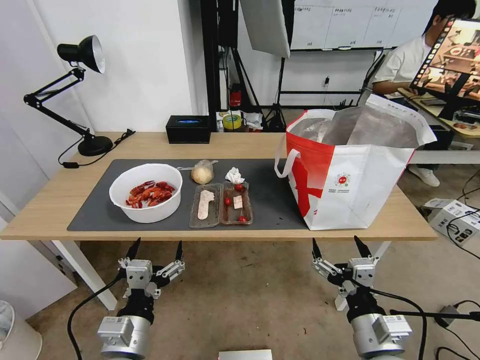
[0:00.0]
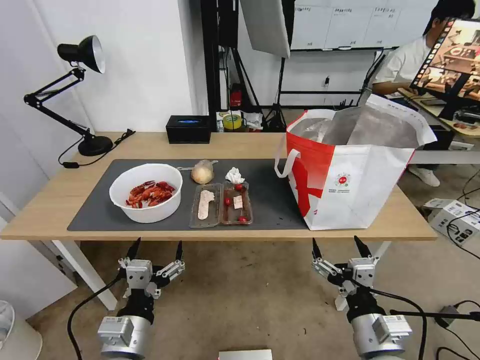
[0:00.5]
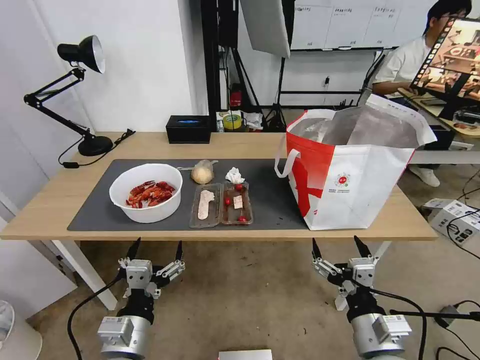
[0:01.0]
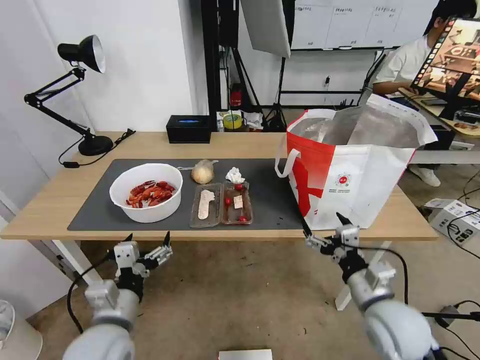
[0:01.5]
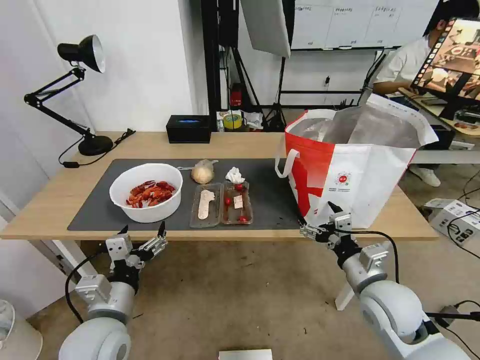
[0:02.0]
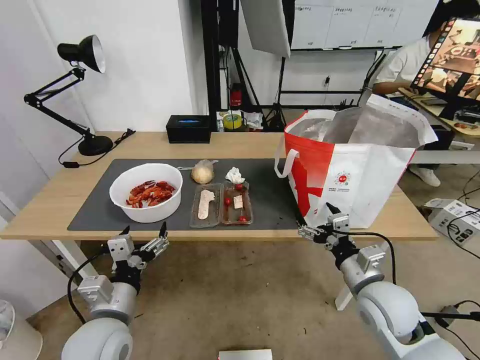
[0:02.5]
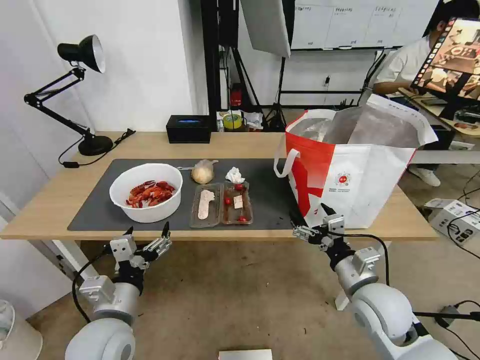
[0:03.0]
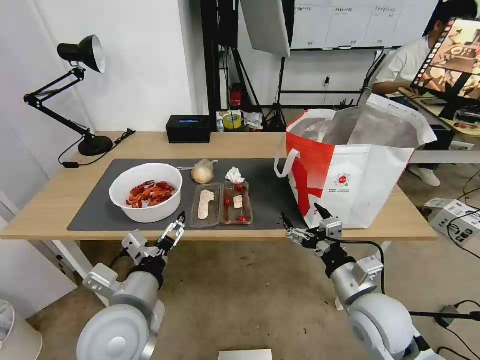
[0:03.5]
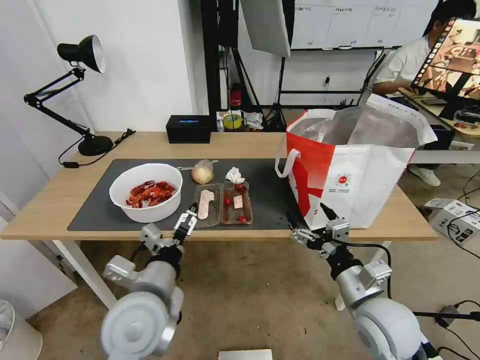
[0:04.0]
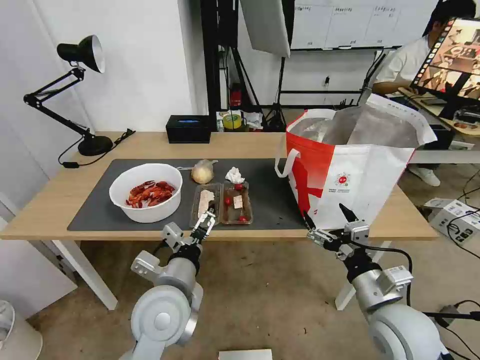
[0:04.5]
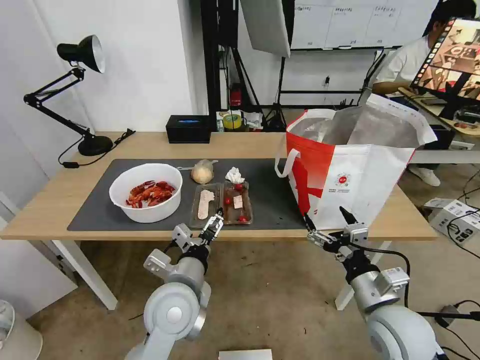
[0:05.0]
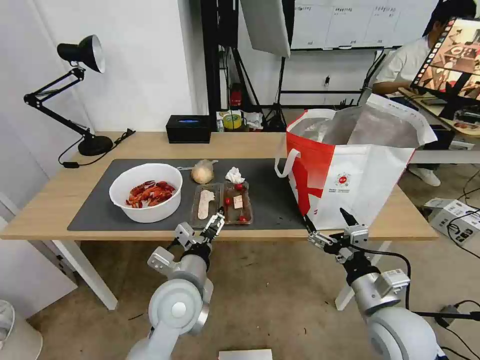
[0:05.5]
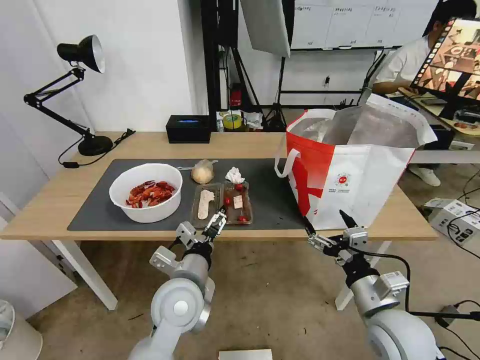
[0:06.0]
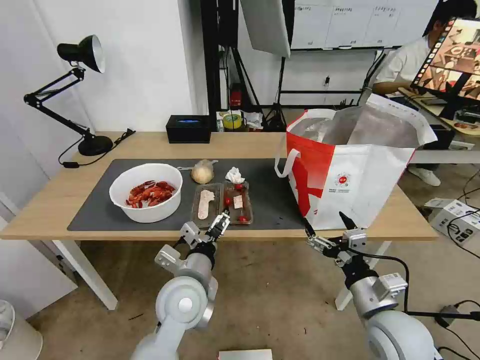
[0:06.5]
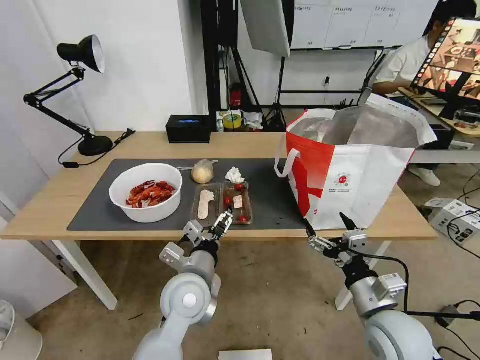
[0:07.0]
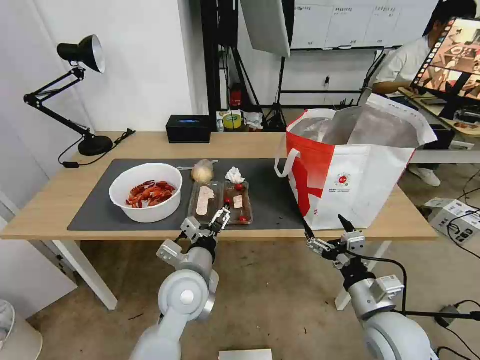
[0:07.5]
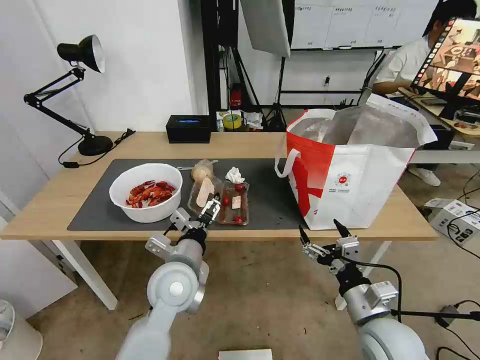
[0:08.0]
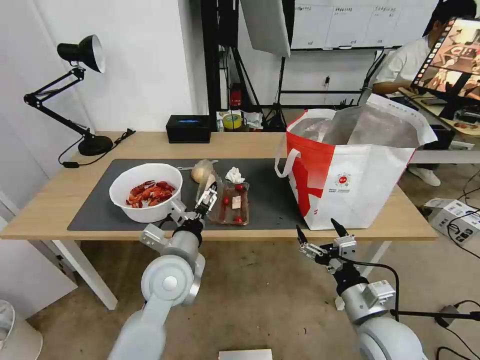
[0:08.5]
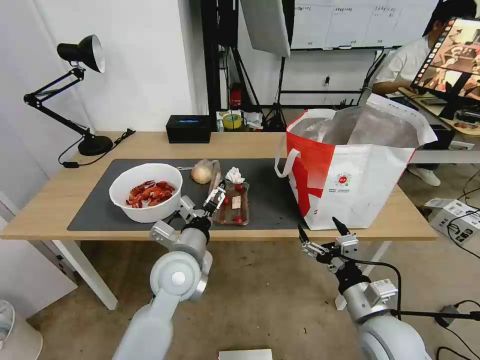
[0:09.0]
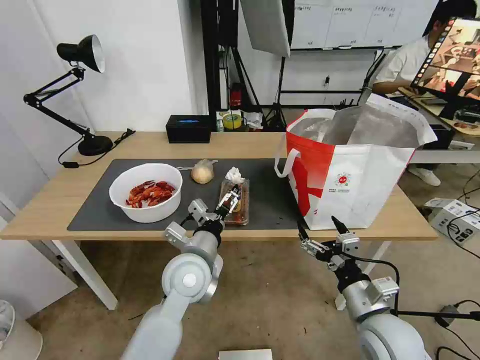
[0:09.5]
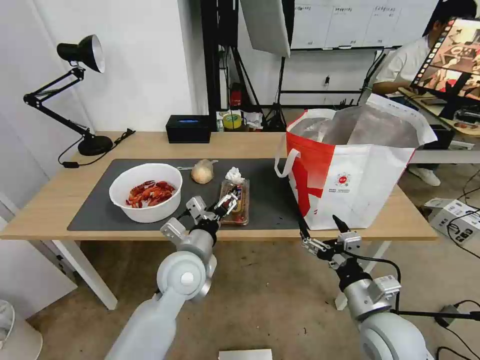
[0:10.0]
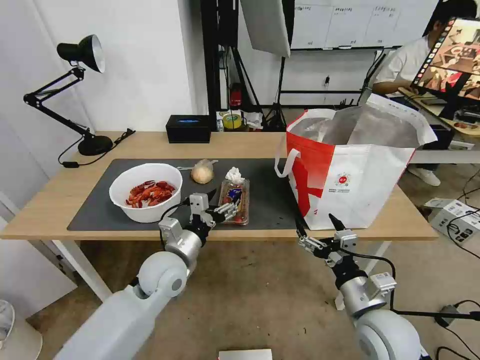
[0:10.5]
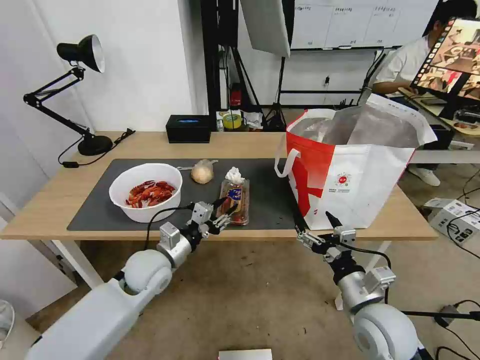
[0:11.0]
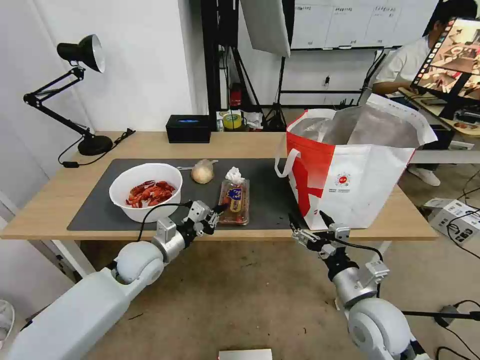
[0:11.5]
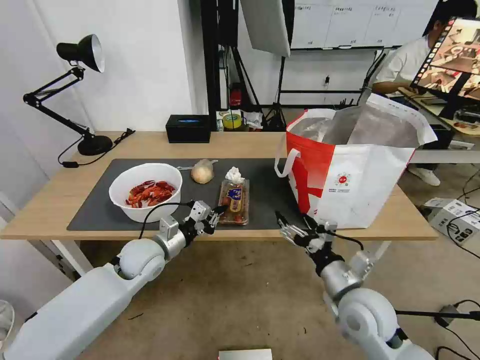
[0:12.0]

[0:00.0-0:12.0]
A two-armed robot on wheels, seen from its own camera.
Task of the whole recording: Pick up the trash from the table and place it into the takeout bag.
0:02.0 to 0:04.0: The left gripper goes approximately 10 cm to the right and upward.
0:04.0 to 0:06.0: The left gripper moves some 10 cm.
0:06.0 to 0:10.0: The grippers stay close to where they were, moving slightly.
0:10.0 to 0:12.0: The right gripper shifts by about 5 cm; the left gripper travels to the left and forward by some 15 cm, and closes.

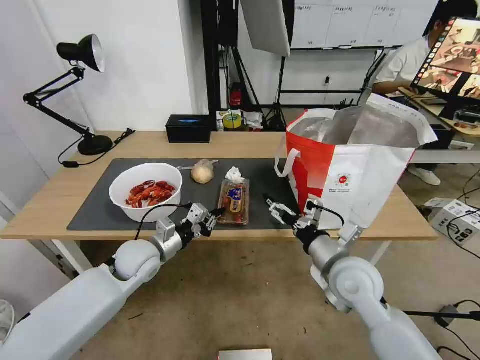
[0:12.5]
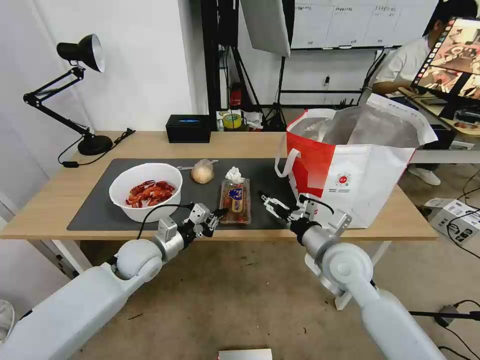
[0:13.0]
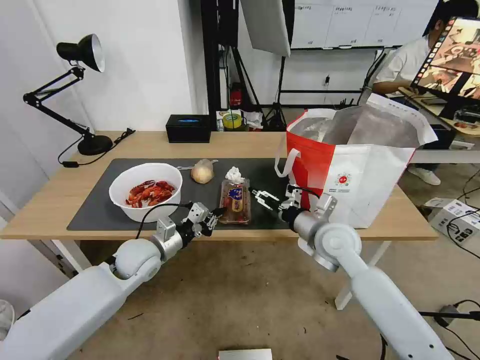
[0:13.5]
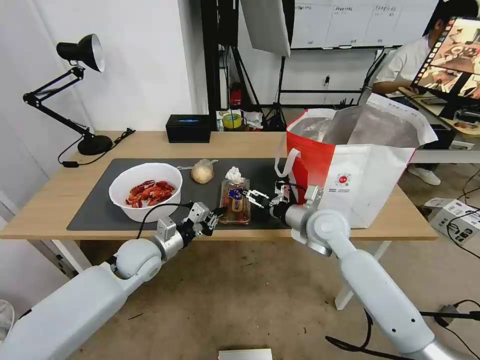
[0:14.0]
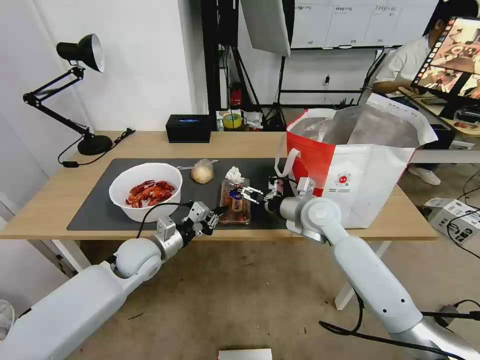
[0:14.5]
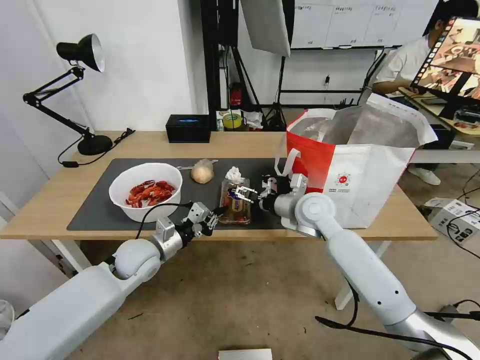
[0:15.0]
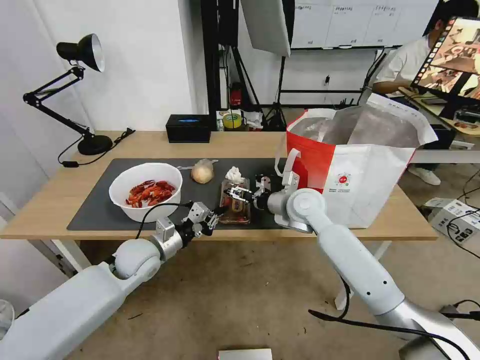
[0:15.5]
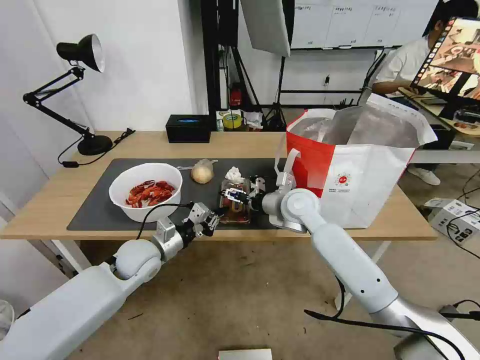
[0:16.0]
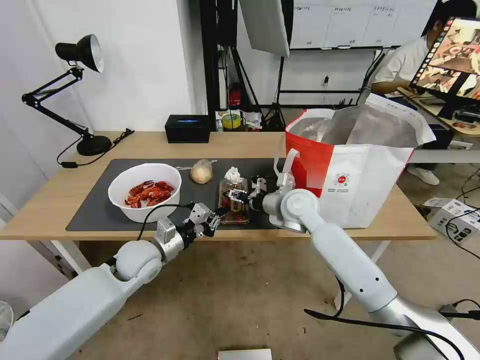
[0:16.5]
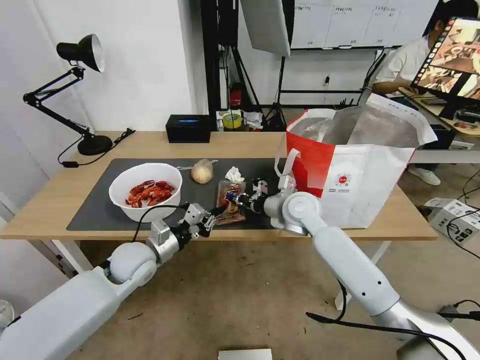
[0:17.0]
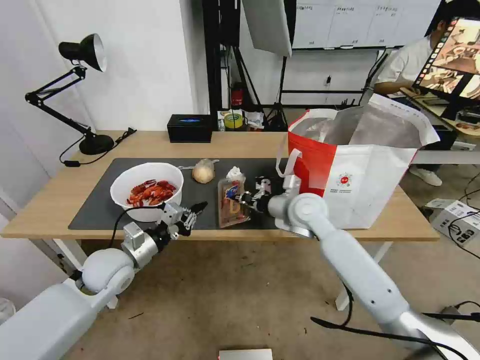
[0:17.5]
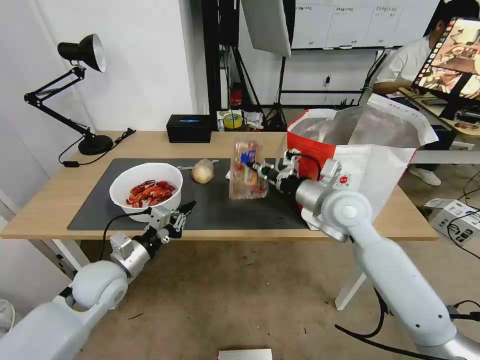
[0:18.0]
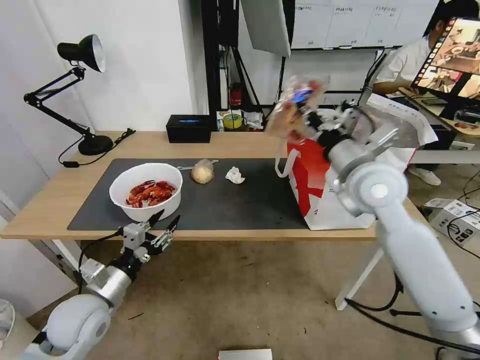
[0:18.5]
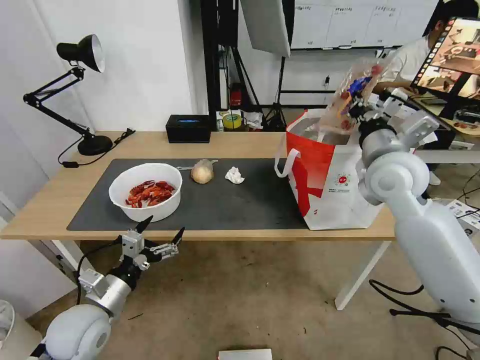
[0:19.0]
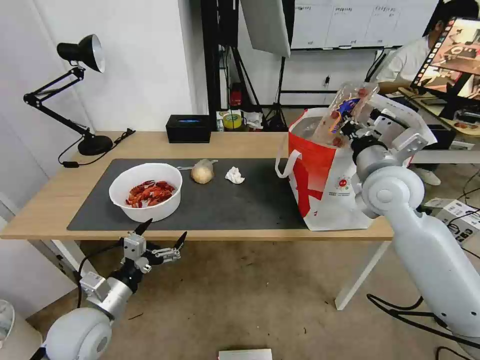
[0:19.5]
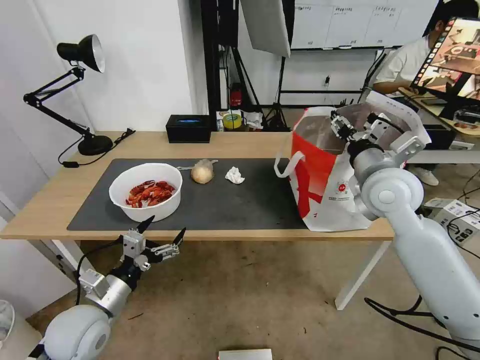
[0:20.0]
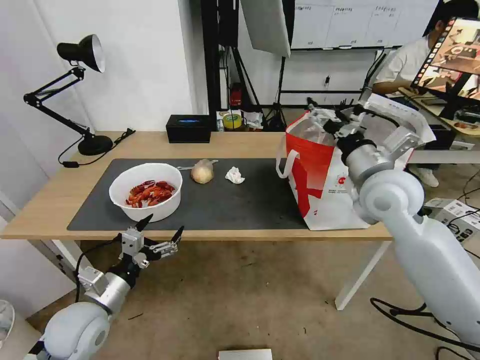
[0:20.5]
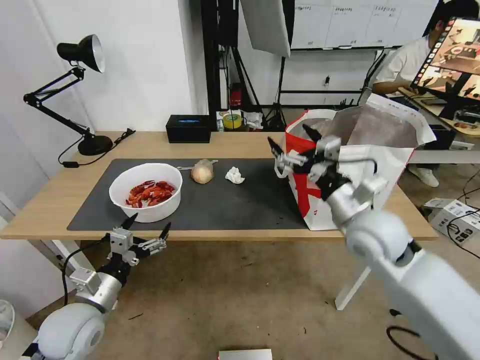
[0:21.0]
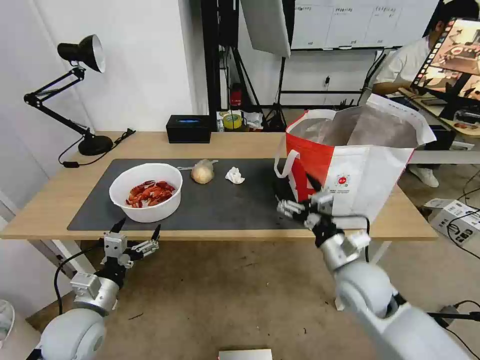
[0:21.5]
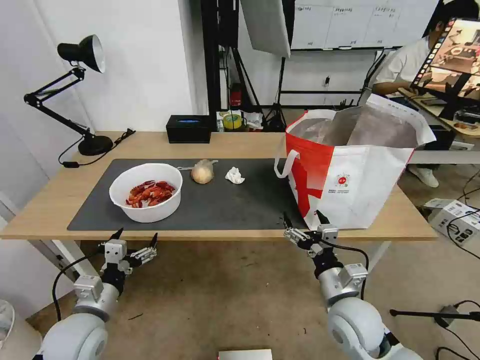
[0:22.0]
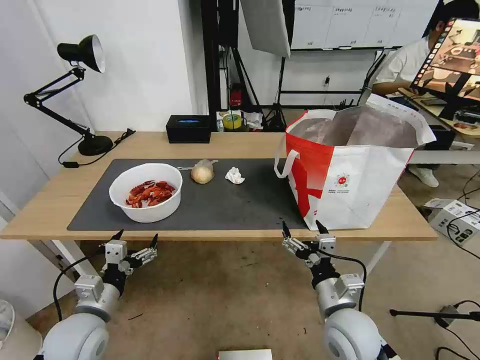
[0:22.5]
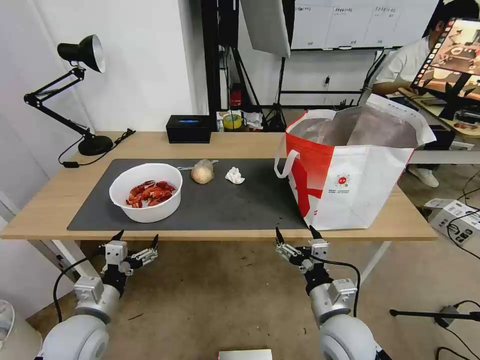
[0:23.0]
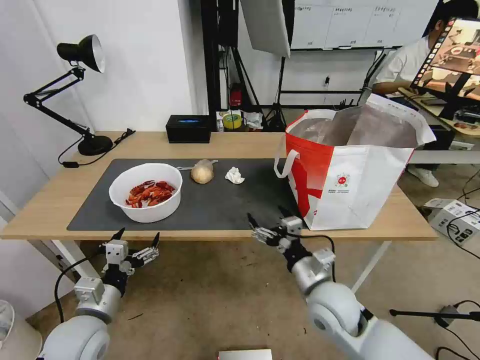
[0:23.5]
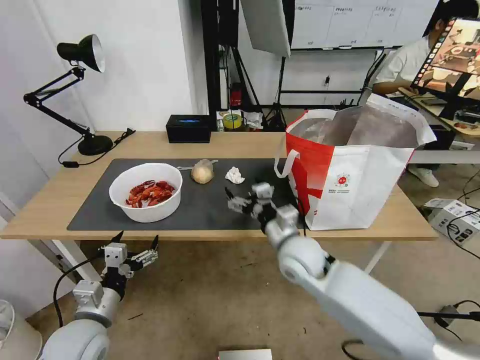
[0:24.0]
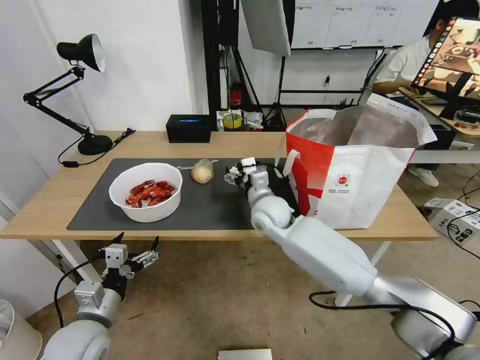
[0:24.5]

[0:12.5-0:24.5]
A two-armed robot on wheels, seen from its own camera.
Task of the whole recording: Pick up the trash from the table and place it into the takeout bag.
0:12.5 to 0:14.5: The right gripper is displaced forward by about 15 cm.
0:14.5 to 0:16.5: The right gripper moves some 5 cm.
0:16.5 to 0:18.5: The left gripper shifts about 15 cm backward and to the left, and opens, while the right gripper goes approximately 20 cm upward, to the right and backward, and closes its fingers.
0:18.5 to 0:20.5: The left gripper opens its fingers; the right gripper opens.
0:20.5 to 0:22.5: The right gripper travels downward and backward by approximately 30 cm.
0:22.5 to 0:24.5: The right gripper moves forward and to the left, about 30 cm.

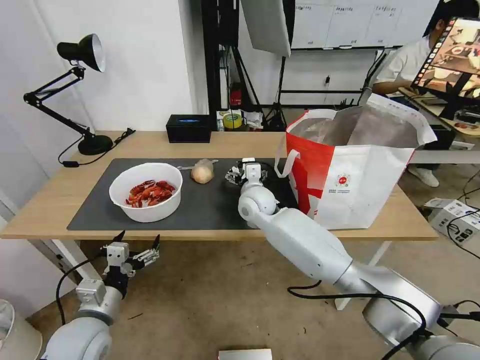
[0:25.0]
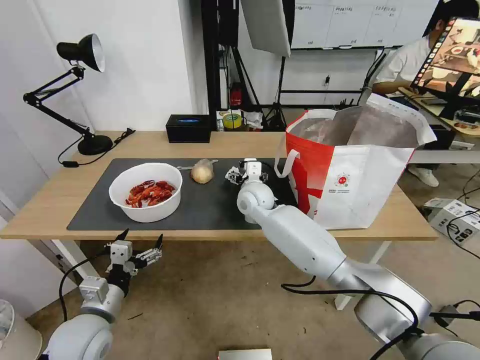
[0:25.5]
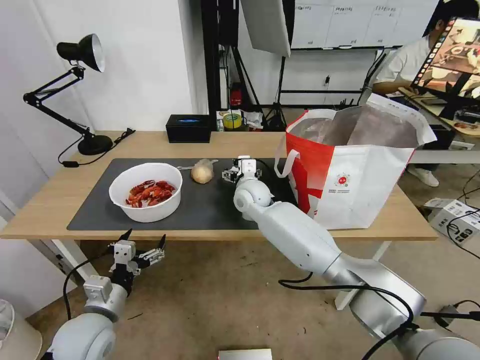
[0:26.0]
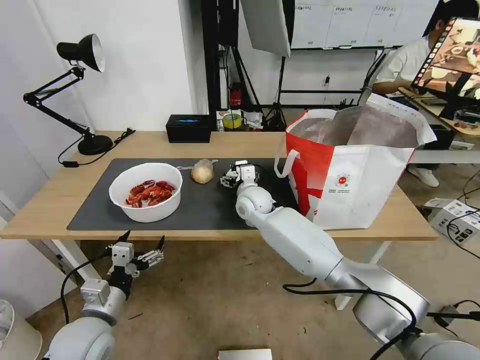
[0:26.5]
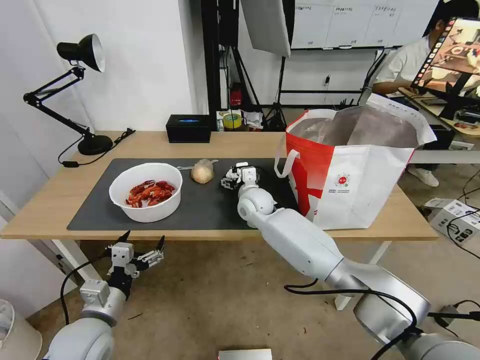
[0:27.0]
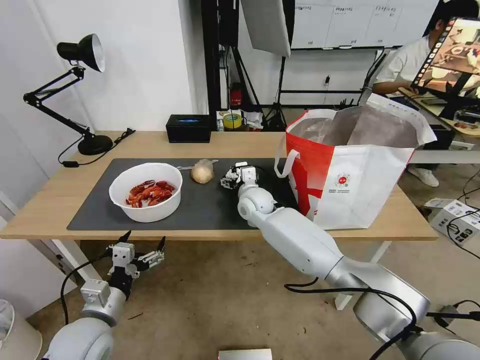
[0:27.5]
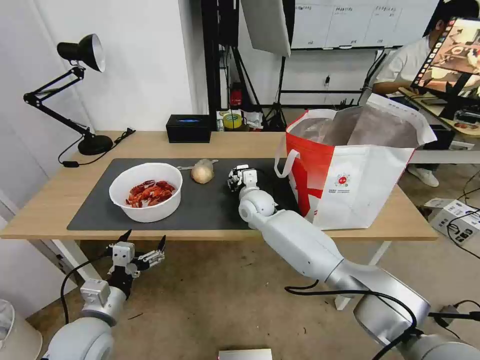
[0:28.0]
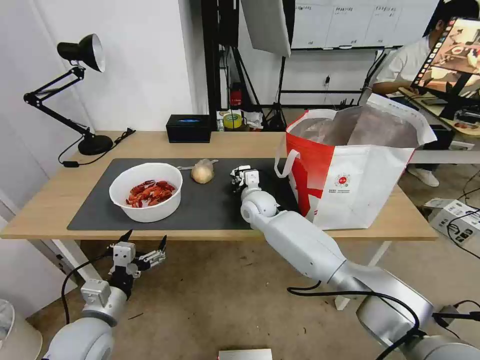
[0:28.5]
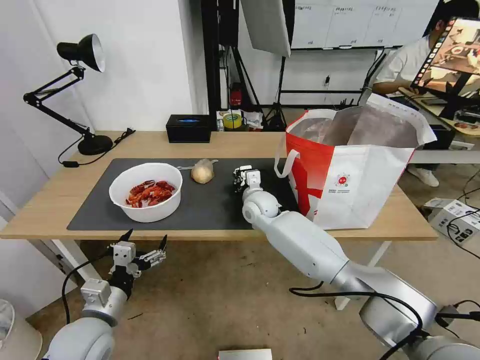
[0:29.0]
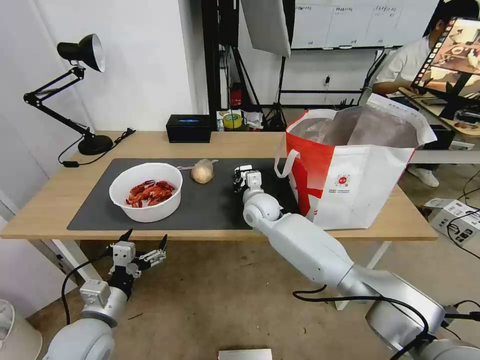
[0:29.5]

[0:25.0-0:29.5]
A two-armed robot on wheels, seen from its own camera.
Task of the whole recording: Pick up the trash from the table and place it into the takeout bag.
0:25.0 to 0:27.0: The grippers make only small movements.
0:27.0 to 0:29.5: The right gripper closes up.
